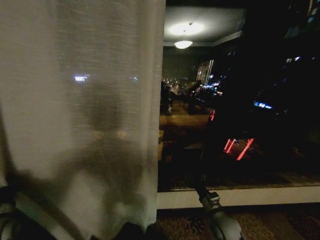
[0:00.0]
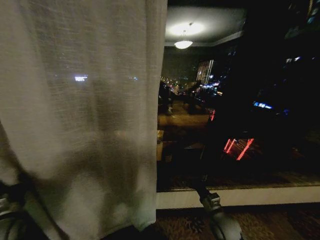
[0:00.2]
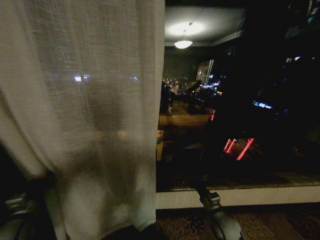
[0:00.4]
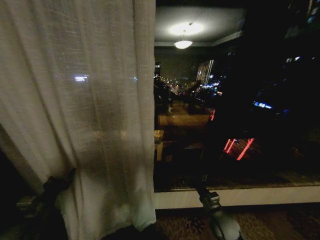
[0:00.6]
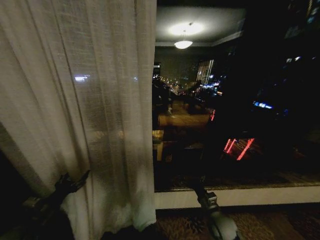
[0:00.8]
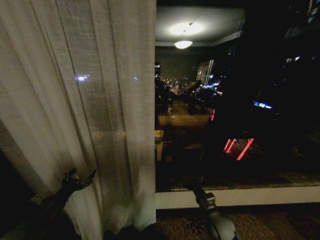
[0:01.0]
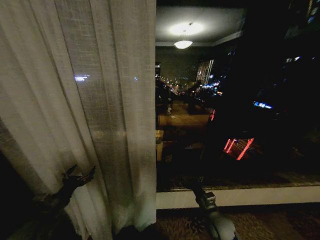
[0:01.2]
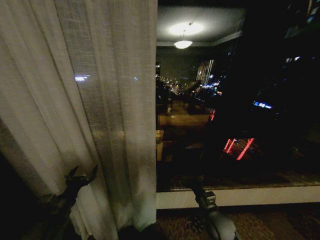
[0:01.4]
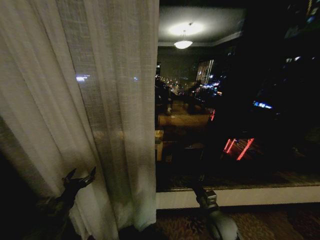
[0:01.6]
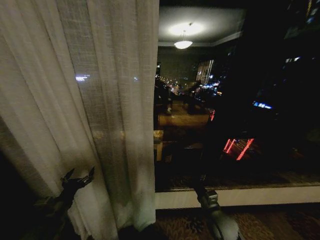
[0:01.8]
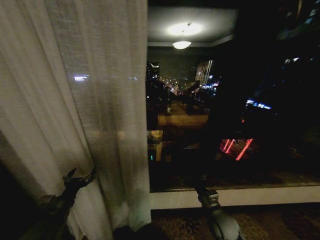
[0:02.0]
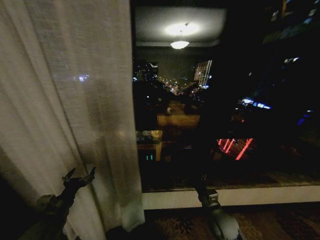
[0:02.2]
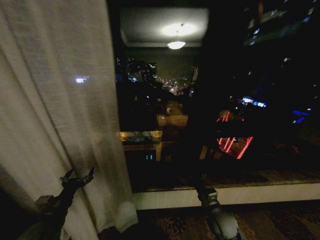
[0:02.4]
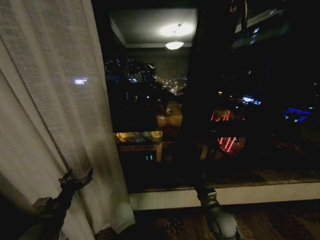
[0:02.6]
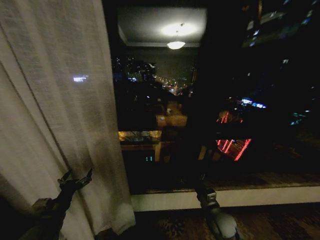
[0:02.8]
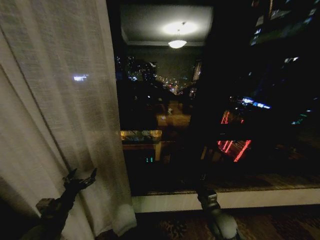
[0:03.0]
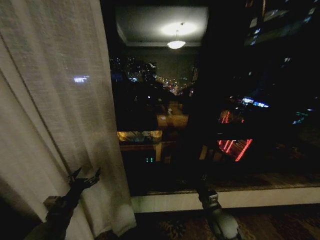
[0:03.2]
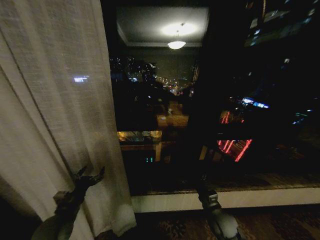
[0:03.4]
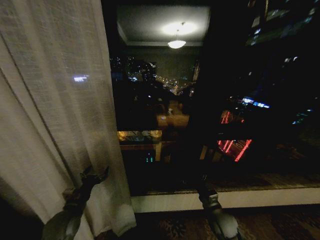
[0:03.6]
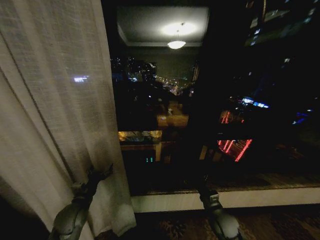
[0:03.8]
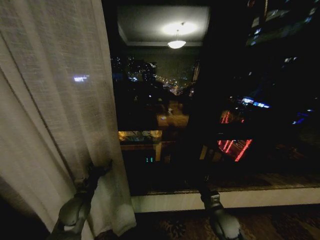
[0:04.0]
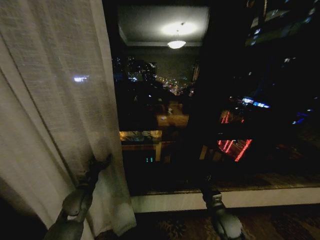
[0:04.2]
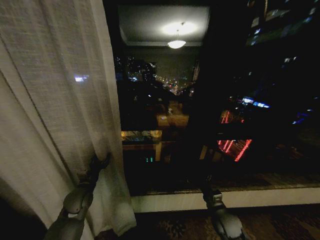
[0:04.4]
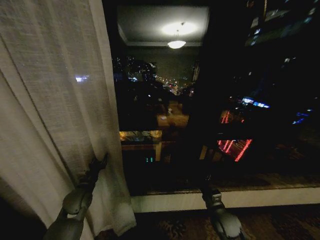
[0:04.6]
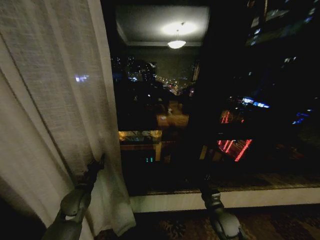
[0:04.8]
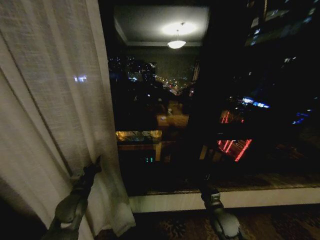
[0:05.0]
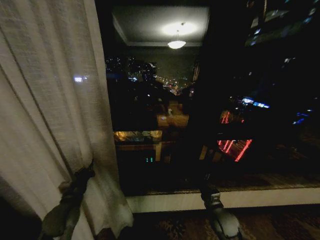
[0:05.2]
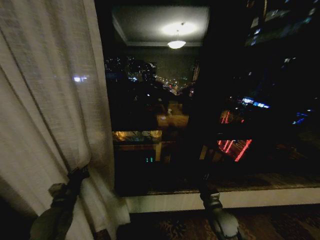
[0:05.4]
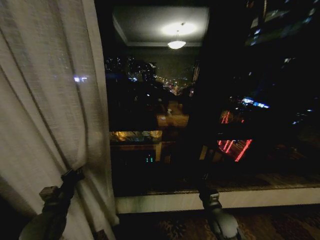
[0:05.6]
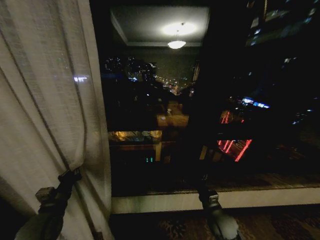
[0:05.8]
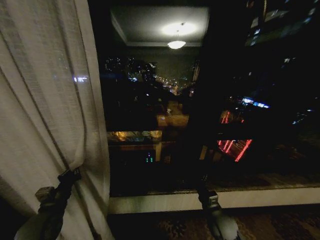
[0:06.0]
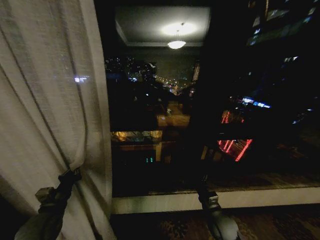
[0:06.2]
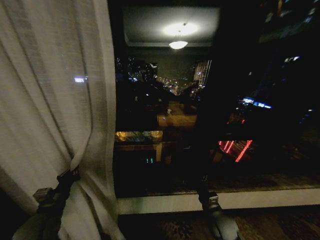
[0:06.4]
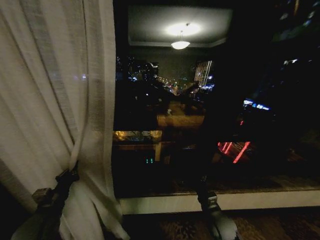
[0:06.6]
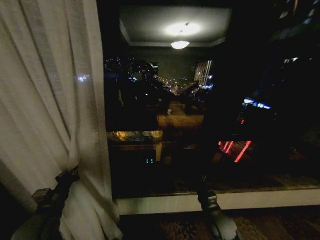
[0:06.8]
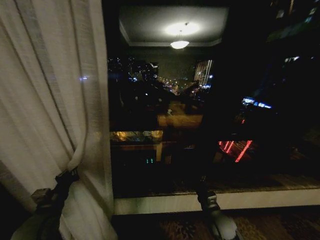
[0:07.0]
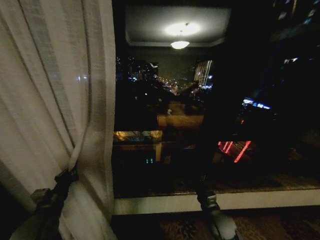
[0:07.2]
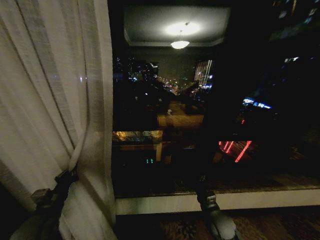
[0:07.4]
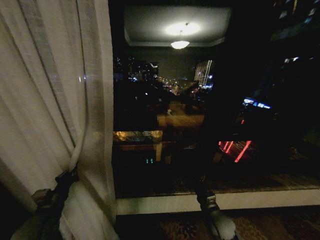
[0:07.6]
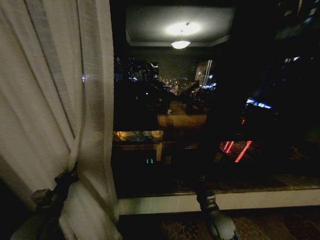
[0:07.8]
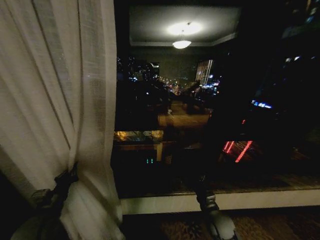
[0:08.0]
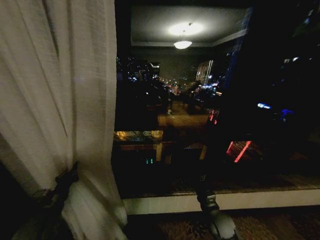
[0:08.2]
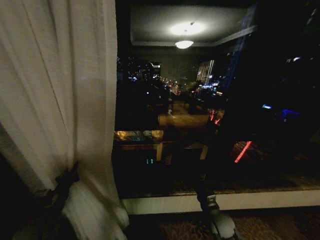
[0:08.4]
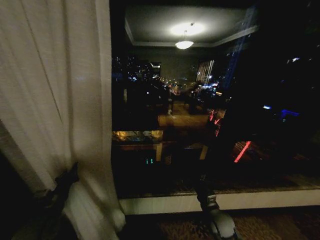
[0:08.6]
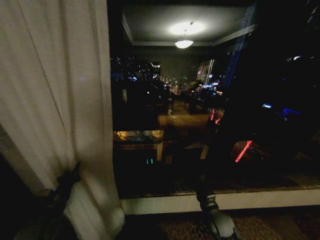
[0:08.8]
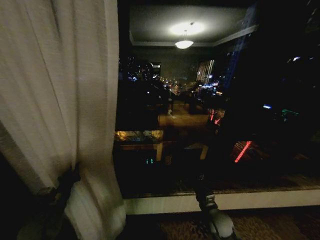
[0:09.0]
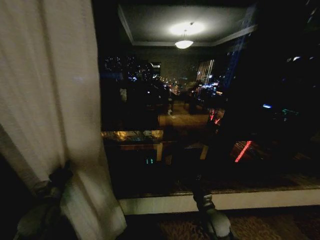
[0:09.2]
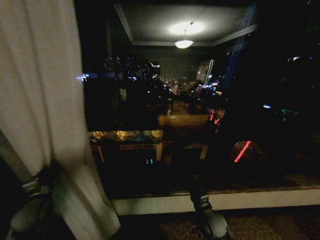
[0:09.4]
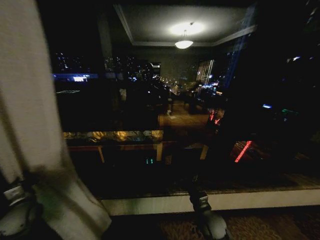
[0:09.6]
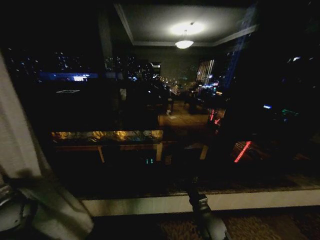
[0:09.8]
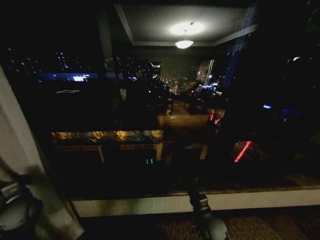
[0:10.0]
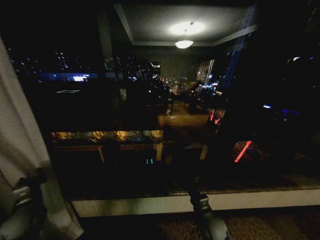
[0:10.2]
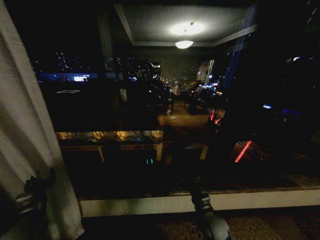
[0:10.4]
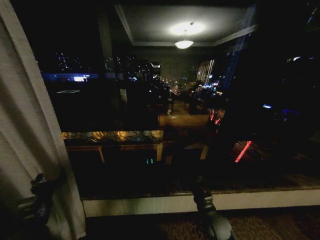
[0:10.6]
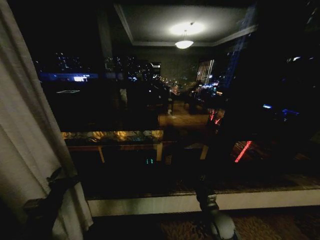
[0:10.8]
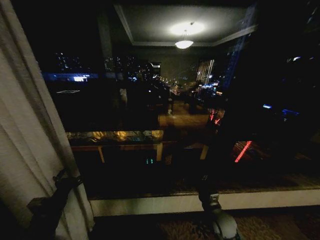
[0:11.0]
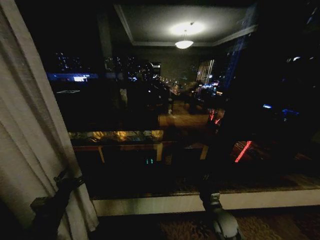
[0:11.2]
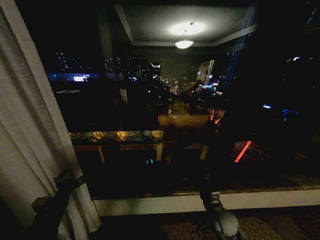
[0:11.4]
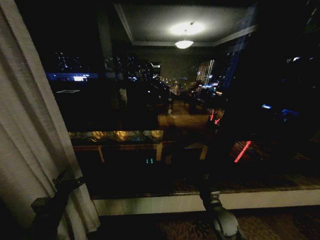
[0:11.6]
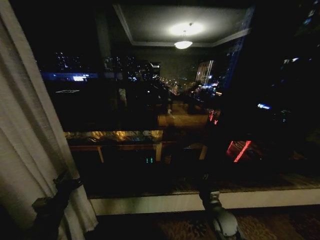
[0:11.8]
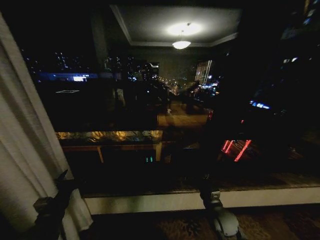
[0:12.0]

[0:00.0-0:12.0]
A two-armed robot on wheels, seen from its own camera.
Task of the whole recording: Open the curtains by pulling them apart, changing their state from closed to fully open.
0:00.0 to 0:01.6: The left gripper moves to the right, some 15 cm, and opens up.
0:03.0 to 0:04.4: The left gripper travels forward by approximately 15 cm.
0:04.4 to 0:06.0: The left gripper is displaced backward and upward by approximately 10 cm, and closes.
0:06.0 to 0:07.6: The two grippers keep their place.
0:07.6 to 0:09.0: There are only small adjustments of the grippers.
0:09.0 to 0:10.4: The left gripper goes to the left and returns, approximately 15 cm each way, and opens.
0:10.4 to 0:12.0: The left gripper changes place by approximately 5 cm, and opens its fingers.
